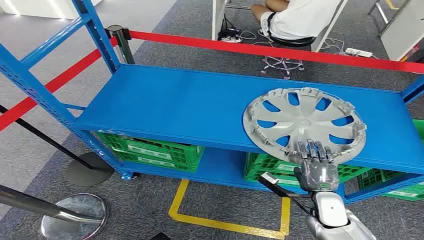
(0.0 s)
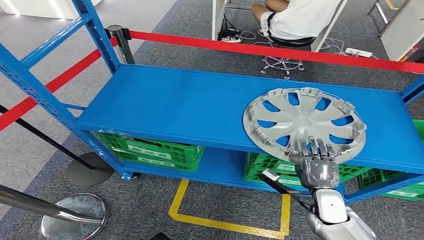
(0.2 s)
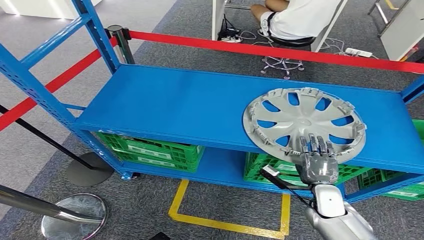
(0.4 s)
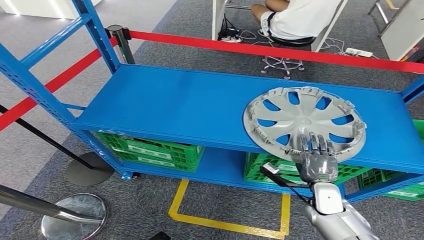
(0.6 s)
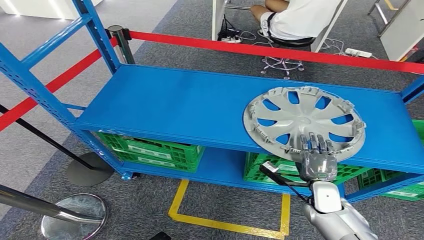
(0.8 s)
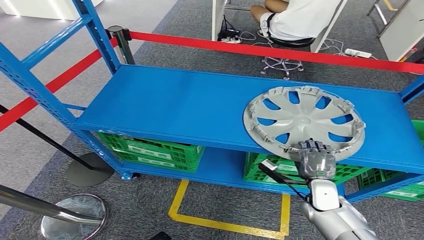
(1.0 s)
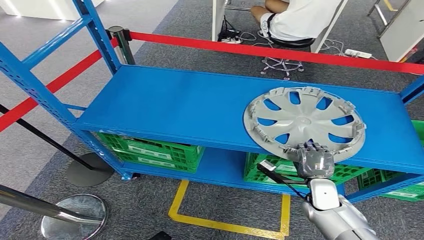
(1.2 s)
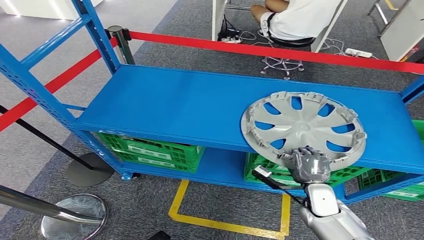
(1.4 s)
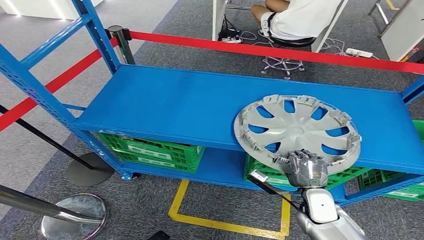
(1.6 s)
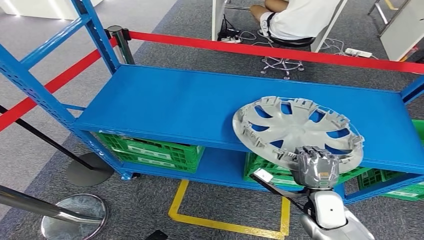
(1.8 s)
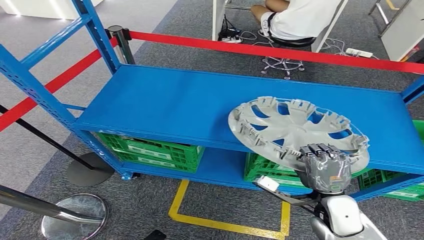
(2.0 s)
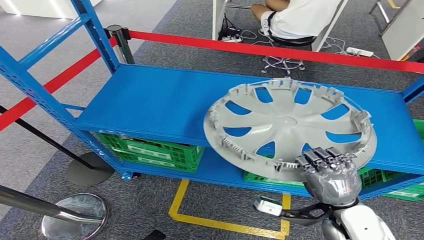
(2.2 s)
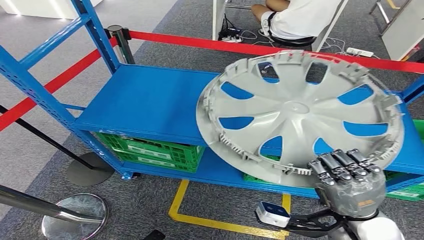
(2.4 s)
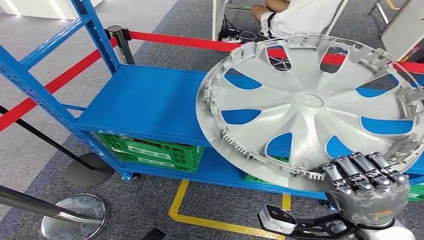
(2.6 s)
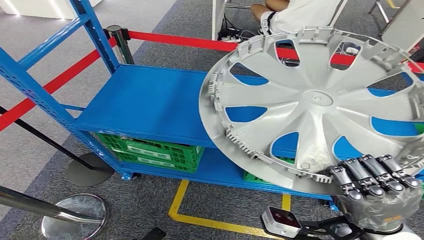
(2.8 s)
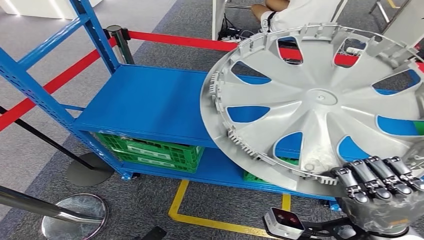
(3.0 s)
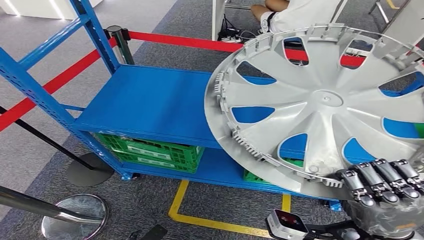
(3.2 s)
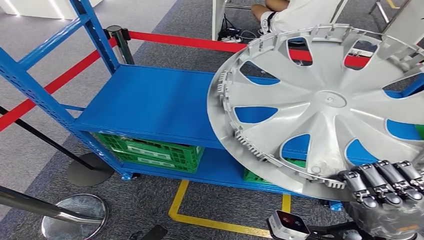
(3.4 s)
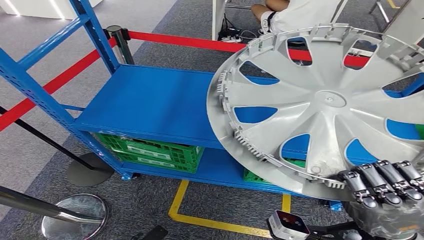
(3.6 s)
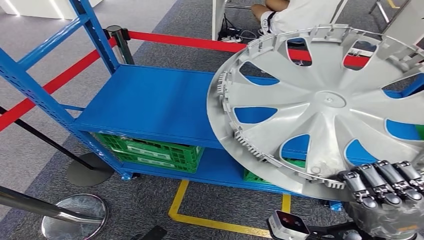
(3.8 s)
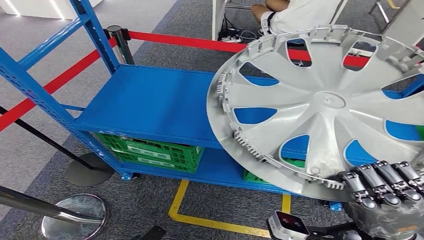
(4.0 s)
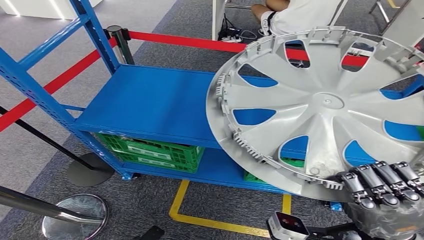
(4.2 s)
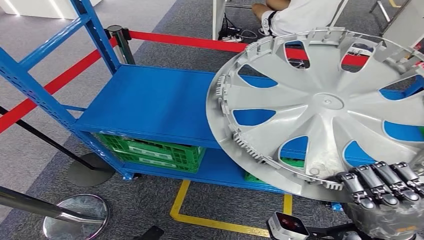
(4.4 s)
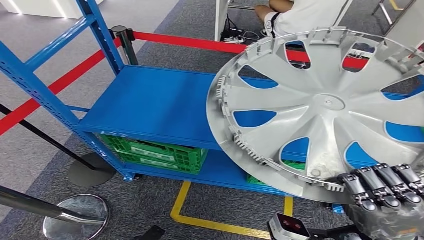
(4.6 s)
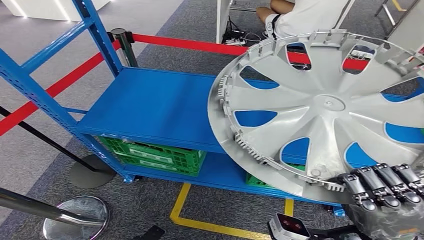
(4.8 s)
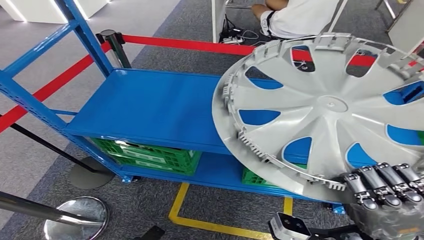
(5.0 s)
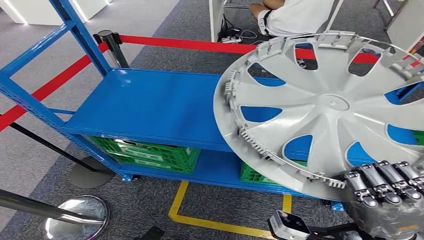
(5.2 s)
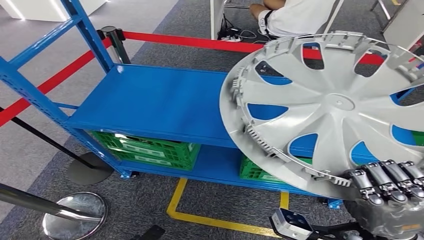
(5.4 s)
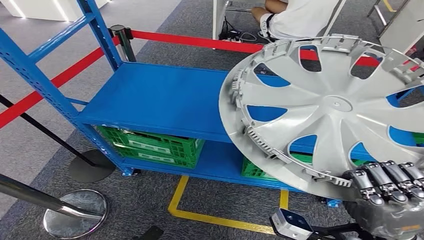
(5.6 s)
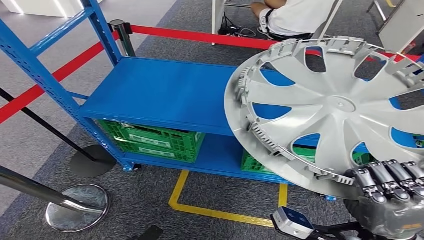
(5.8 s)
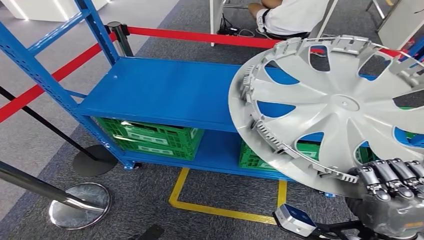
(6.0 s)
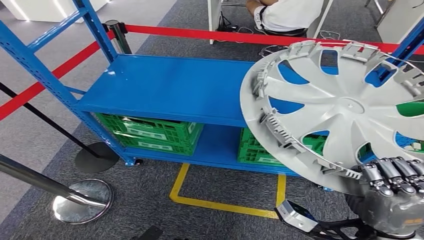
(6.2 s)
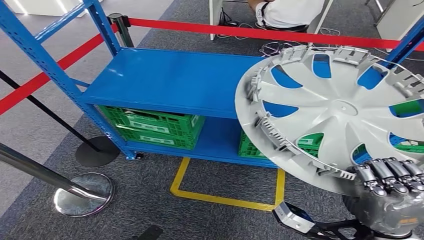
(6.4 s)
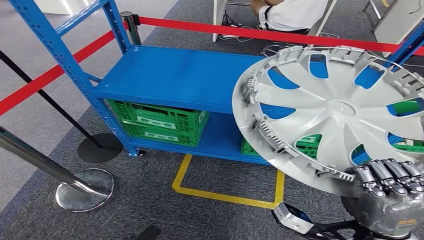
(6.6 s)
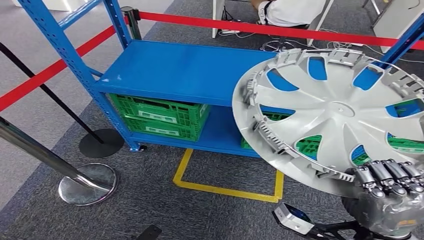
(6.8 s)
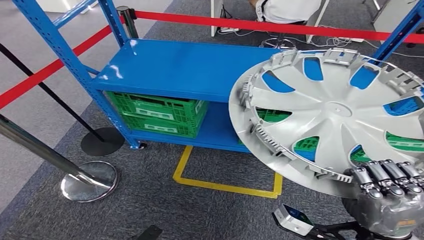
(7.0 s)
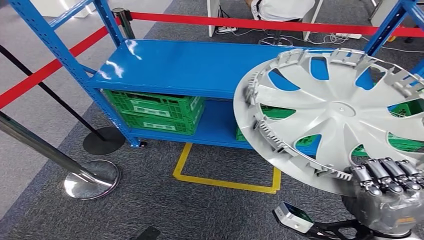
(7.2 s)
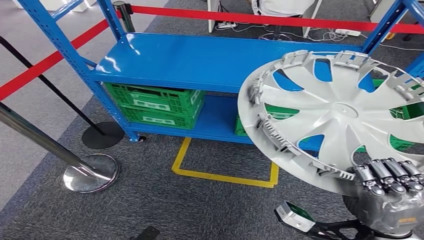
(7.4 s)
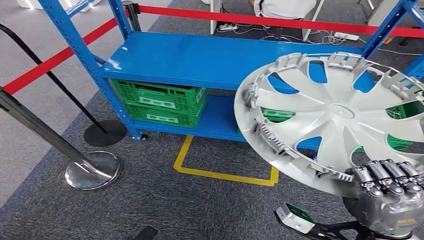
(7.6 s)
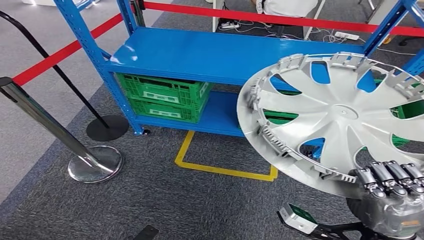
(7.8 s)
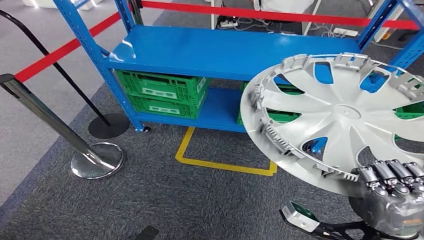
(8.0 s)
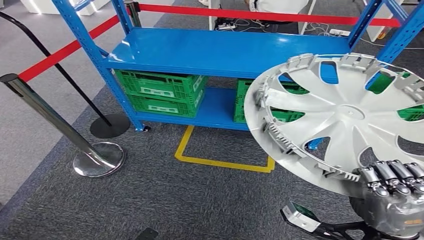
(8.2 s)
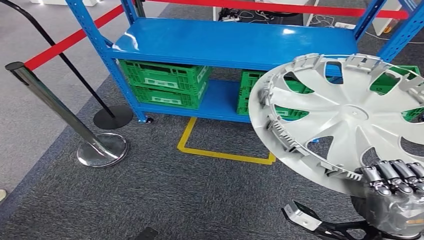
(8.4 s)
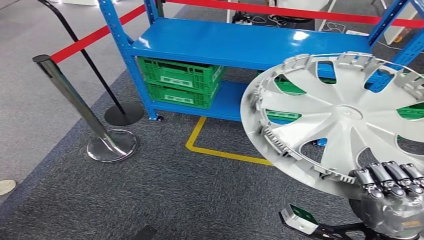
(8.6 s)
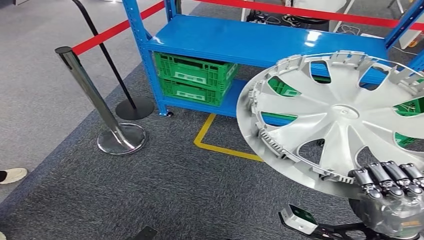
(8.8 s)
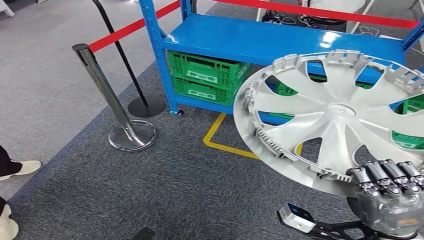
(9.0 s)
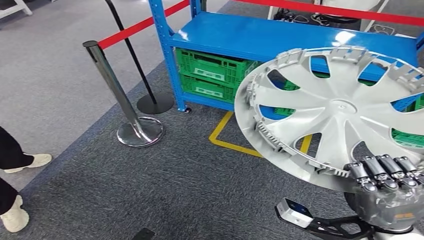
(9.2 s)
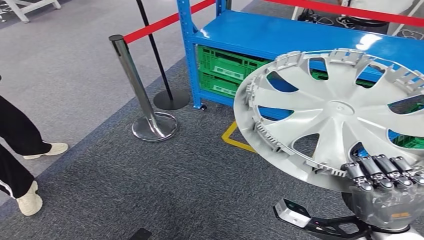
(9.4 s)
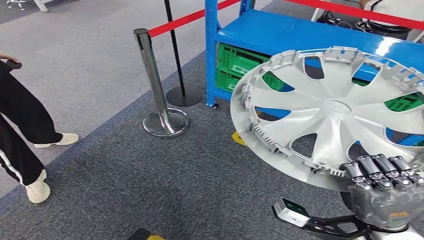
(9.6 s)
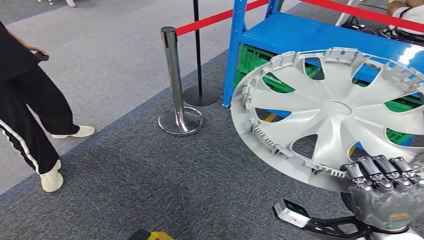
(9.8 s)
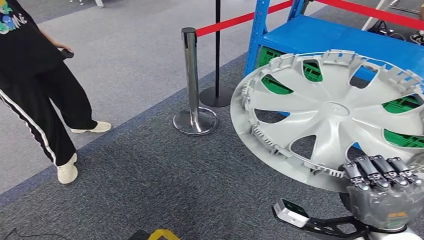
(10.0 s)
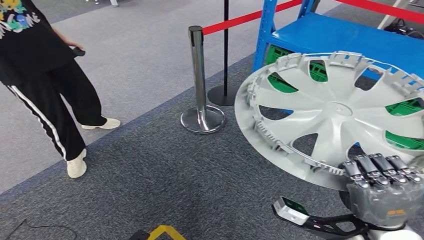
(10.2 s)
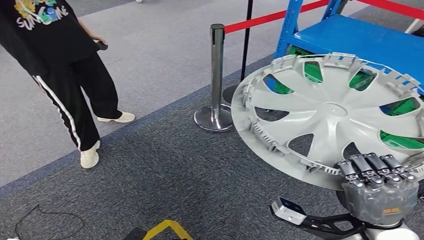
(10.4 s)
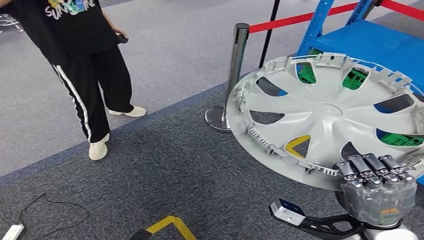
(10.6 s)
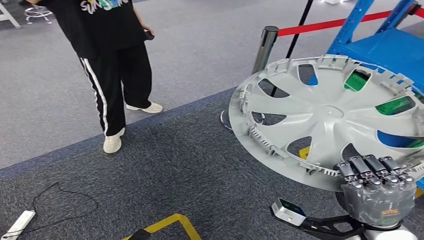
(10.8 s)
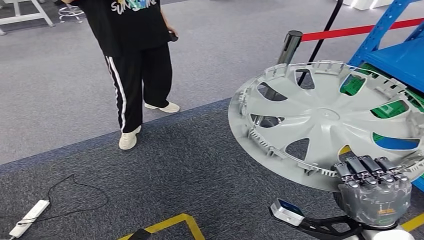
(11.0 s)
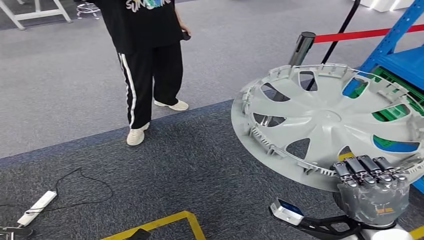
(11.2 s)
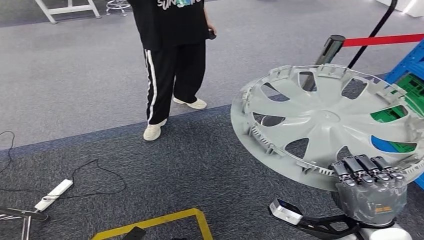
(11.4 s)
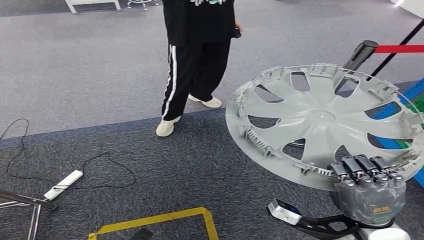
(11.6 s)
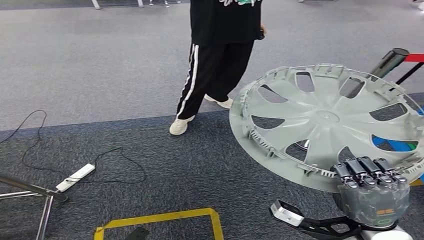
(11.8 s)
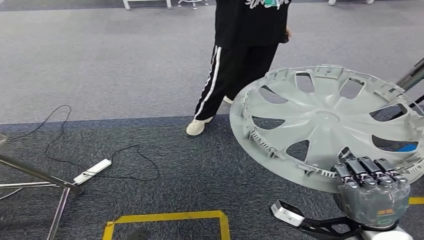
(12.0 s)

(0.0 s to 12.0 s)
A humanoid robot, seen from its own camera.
Step, 0.0 s - 4.6 s: Pick up the small component from the shelf.
3.0 s - 4.4 s: The hands make only small movements.

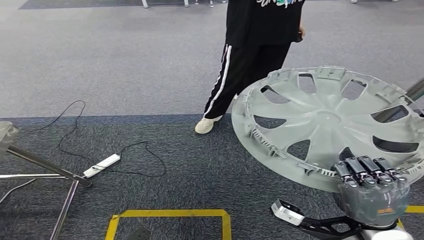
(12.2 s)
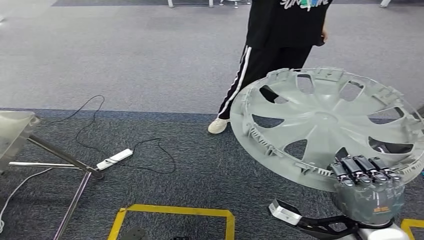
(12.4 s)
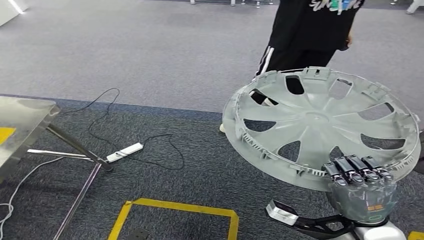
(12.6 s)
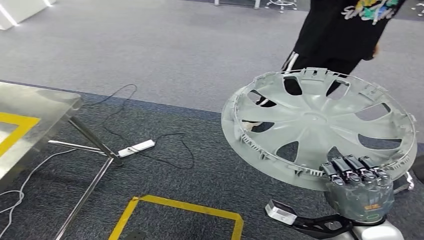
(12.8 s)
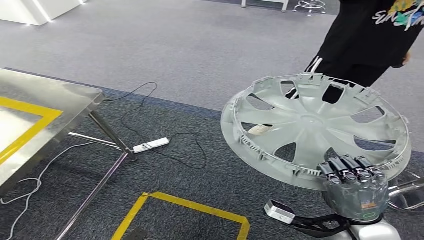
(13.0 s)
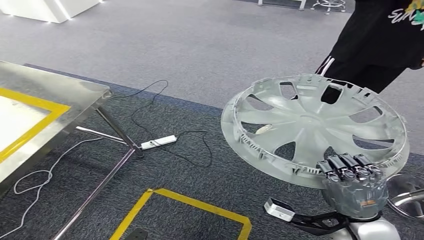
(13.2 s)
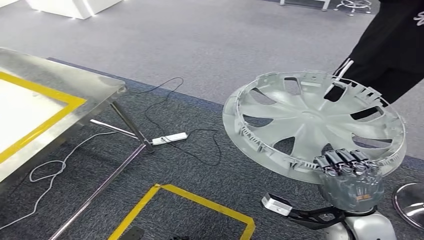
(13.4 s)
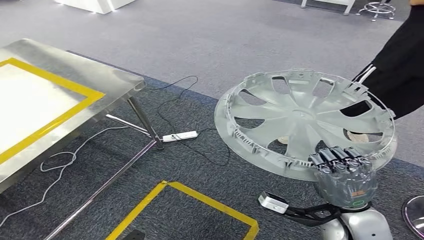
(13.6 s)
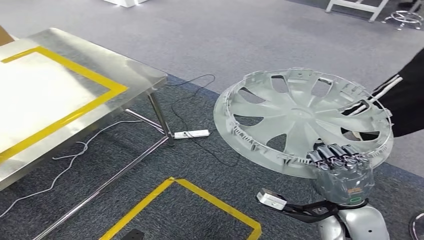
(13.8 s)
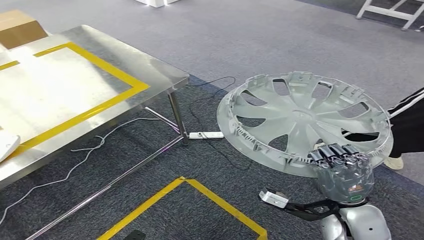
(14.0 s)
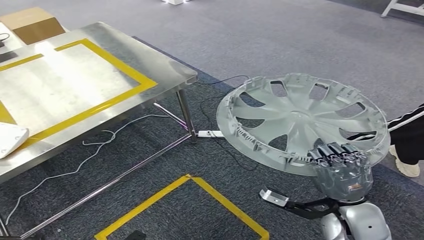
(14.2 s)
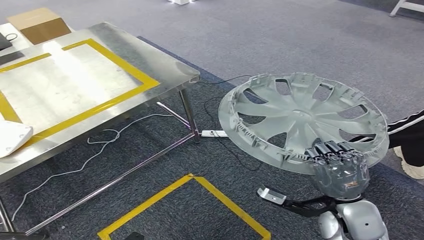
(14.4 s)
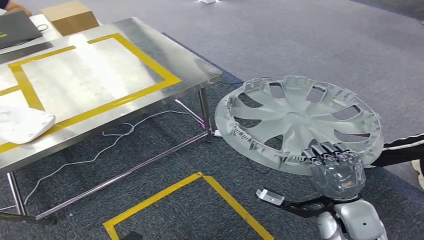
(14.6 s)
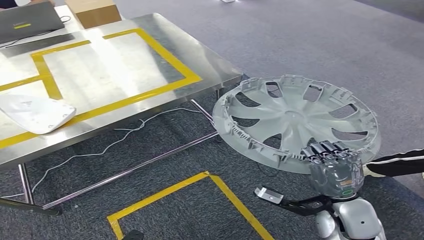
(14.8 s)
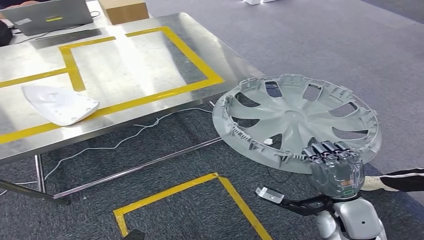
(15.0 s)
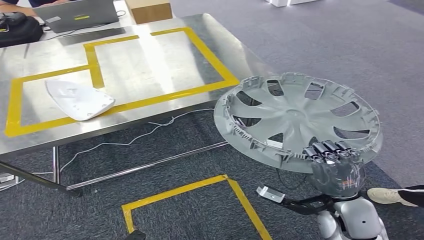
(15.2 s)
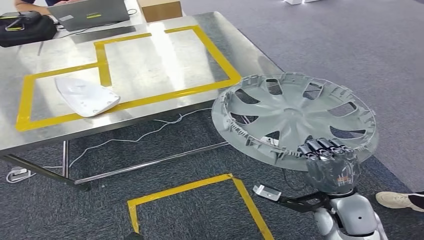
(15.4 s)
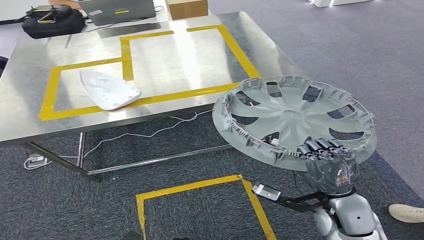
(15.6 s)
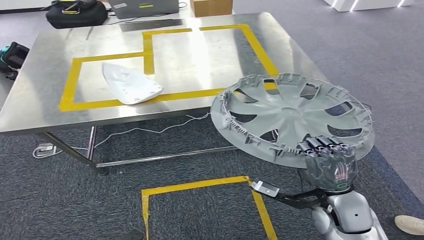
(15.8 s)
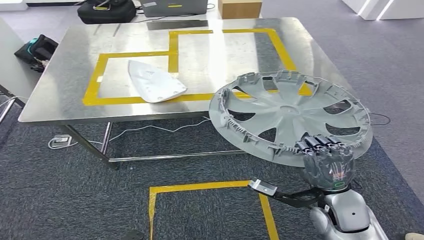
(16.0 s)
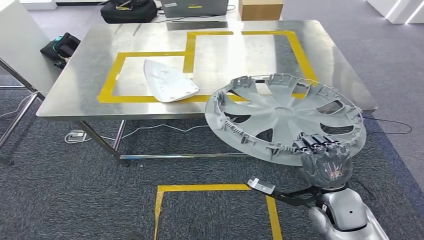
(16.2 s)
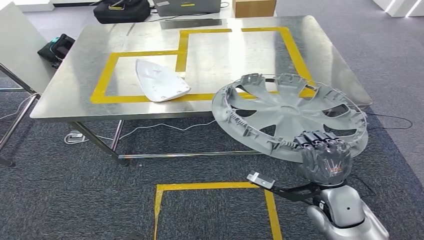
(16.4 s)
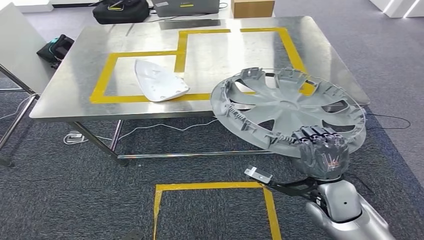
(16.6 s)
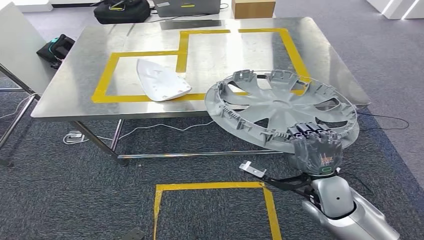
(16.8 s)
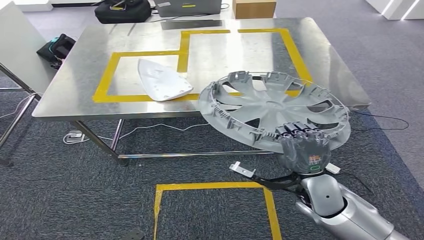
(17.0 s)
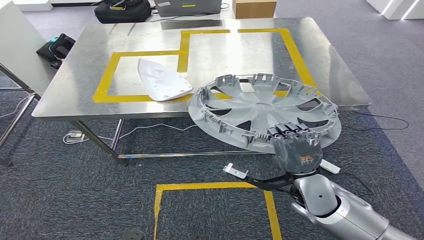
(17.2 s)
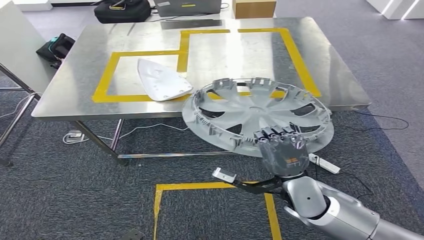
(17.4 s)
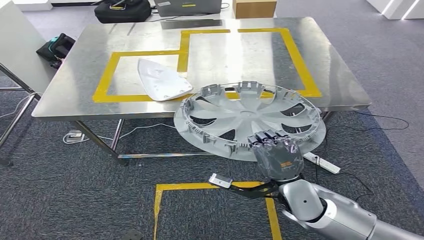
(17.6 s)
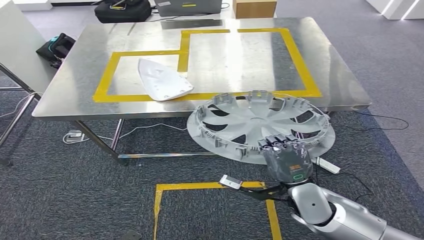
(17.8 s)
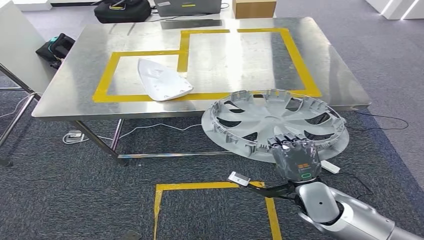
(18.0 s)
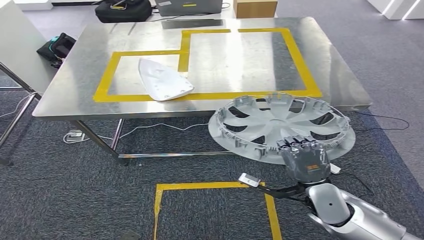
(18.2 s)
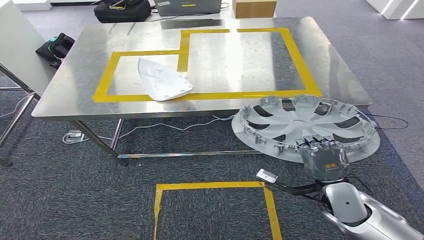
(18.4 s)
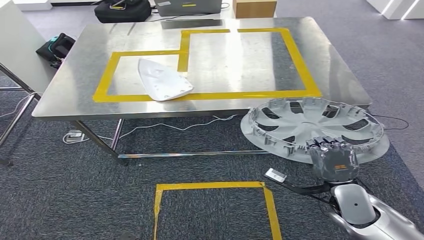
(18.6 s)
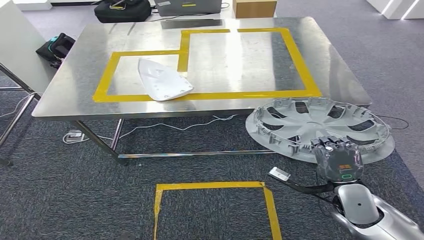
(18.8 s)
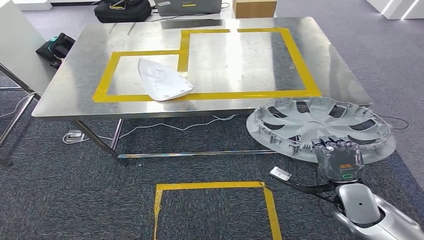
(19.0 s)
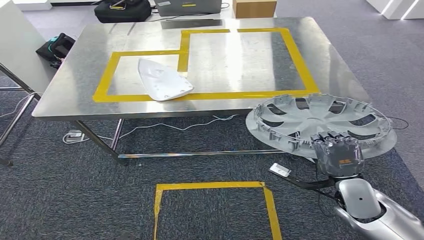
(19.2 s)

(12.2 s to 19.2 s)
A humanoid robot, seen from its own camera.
Step, 12.2 s - 16.8 s: Move the small component to the workbench.
16.4 s - 17.8 s: The hands make only small movements.
17.8 s - 19.2 s: The right hand is displaced to the right by approximately 10 cm.
